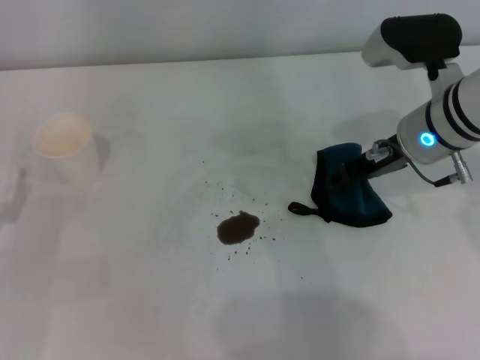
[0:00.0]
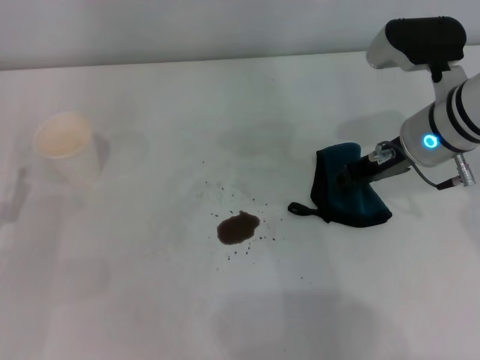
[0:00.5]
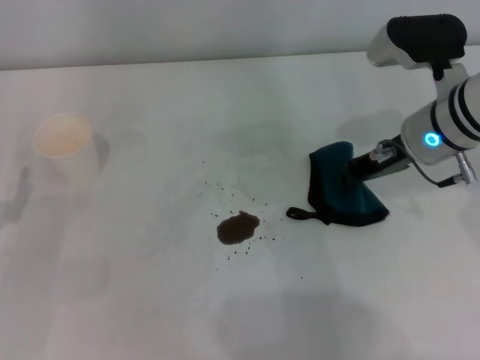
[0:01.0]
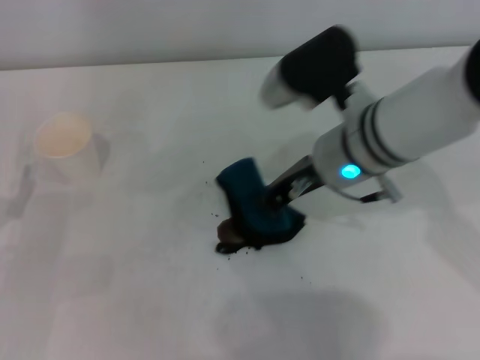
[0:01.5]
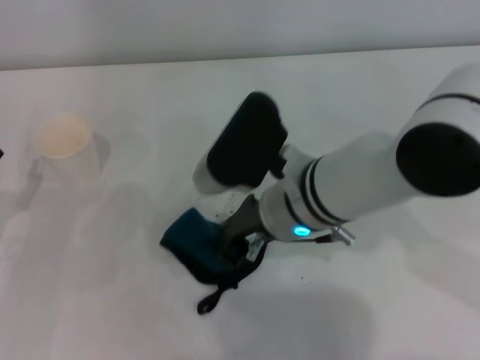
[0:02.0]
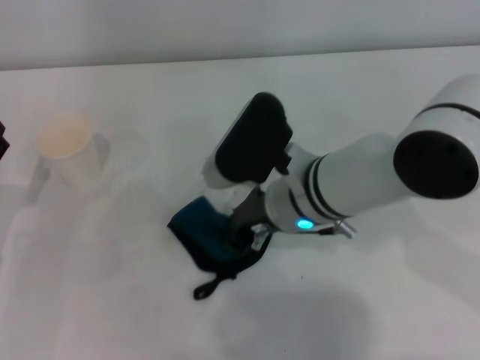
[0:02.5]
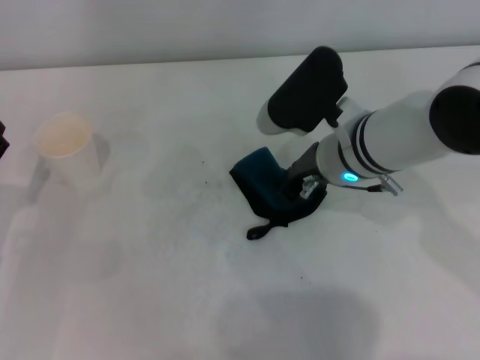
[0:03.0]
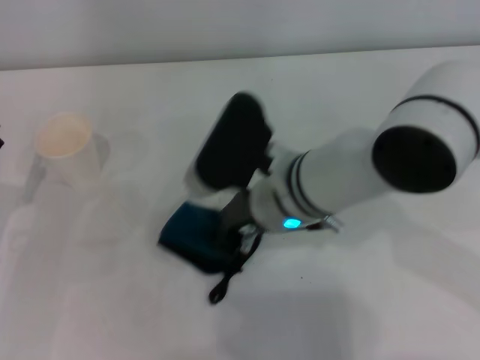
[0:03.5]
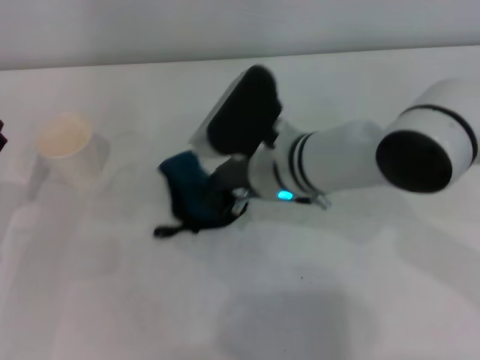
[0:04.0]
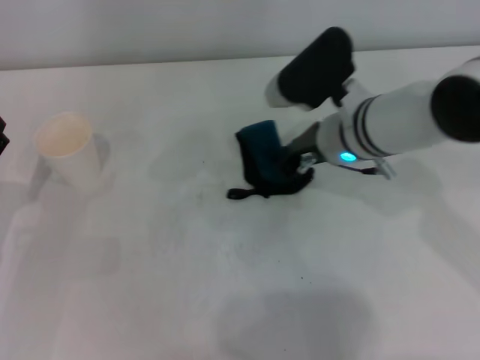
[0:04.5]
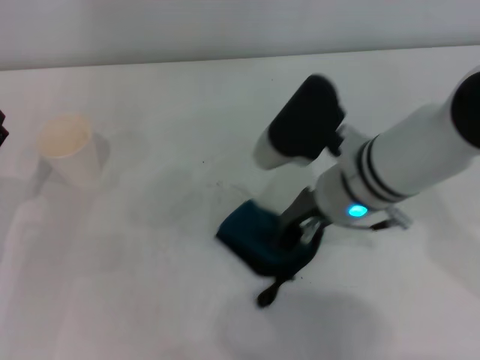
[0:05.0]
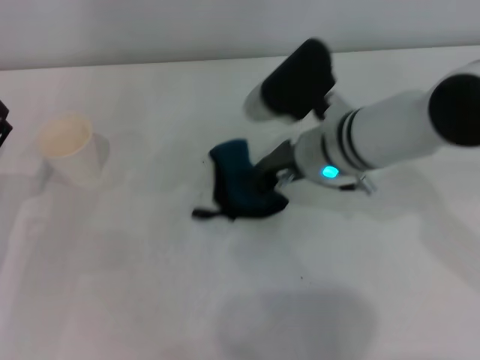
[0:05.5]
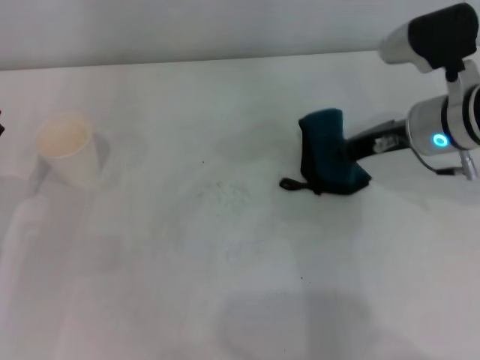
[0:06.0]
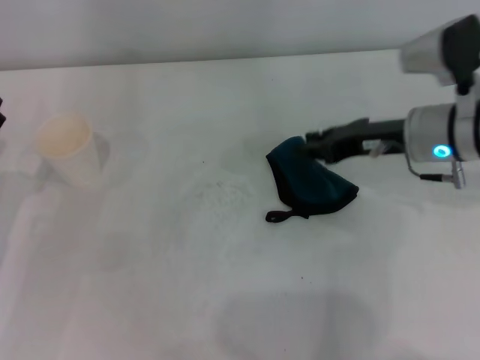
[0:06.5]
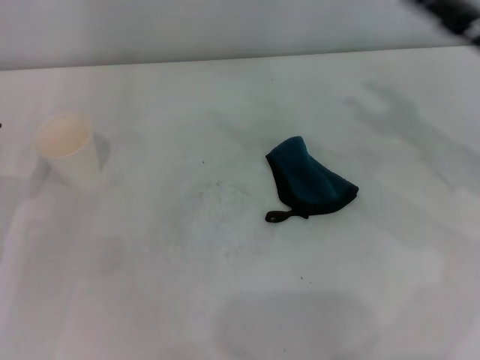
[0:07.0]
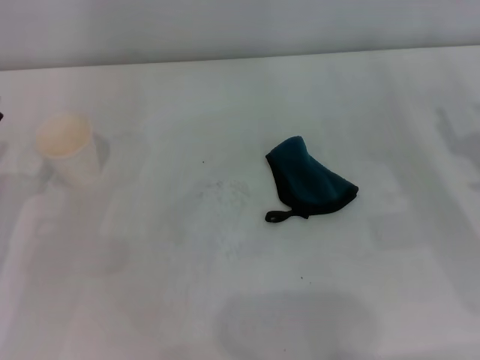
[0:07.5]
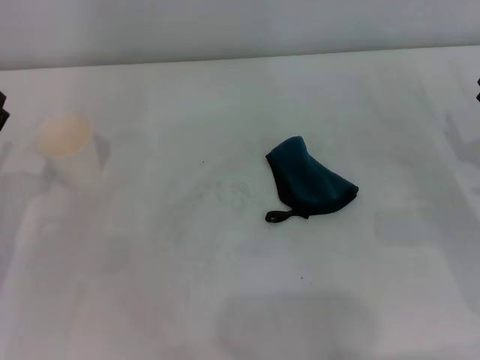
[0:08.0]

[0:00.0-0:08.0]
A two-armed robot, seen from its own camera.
Step, 0:01.0 to 0:05.5: Wipe the stains off the table with the right gripper.
0:00.0 to 0:02.0: The right gripper travels to the left and backward by about 15 cm, and closes up.
0:04.0 to 0:06.0: The right gripper heads to the right, covering roughly 15 cm.
0:06.0 to 0:08.0: The right gripper travels to the right, backward and downward by about 15 cm, and opens up.

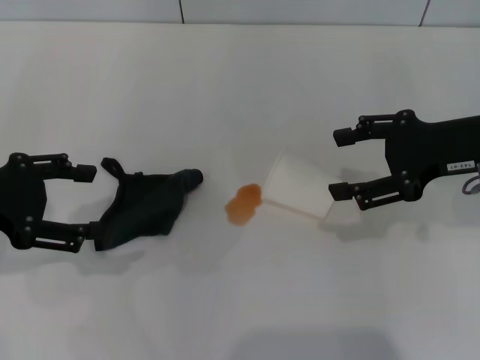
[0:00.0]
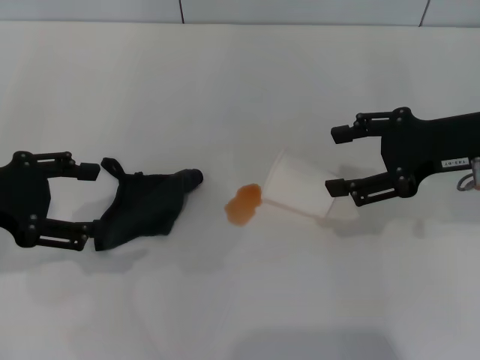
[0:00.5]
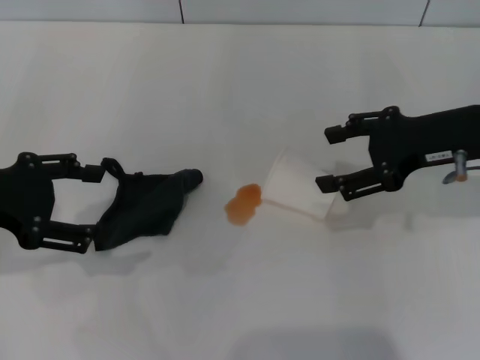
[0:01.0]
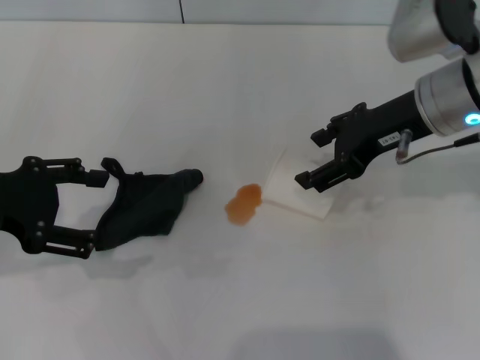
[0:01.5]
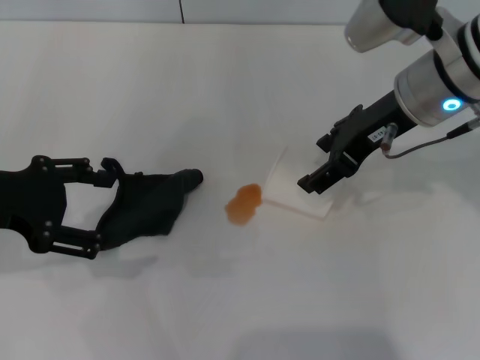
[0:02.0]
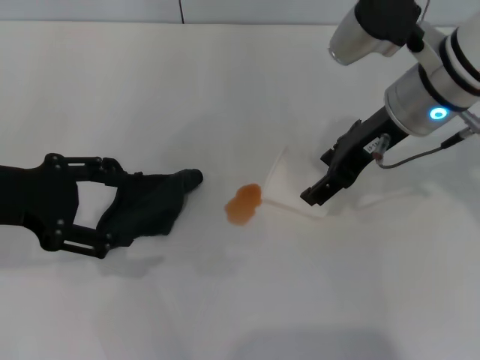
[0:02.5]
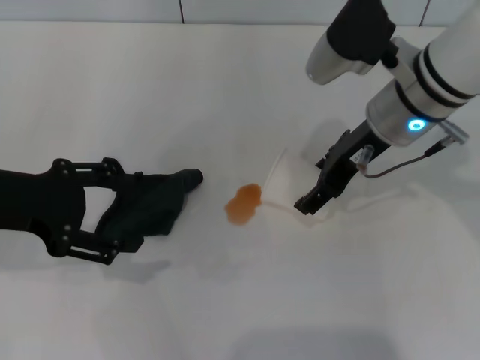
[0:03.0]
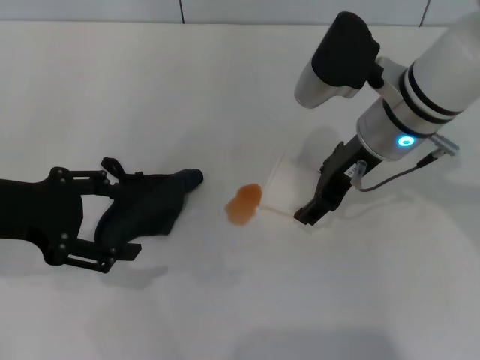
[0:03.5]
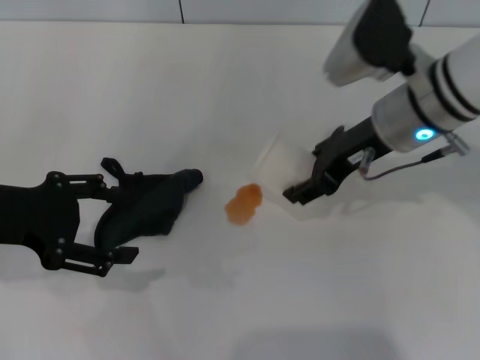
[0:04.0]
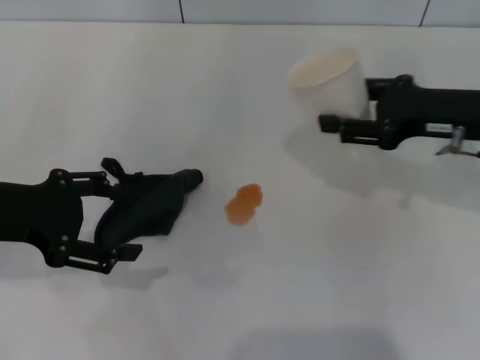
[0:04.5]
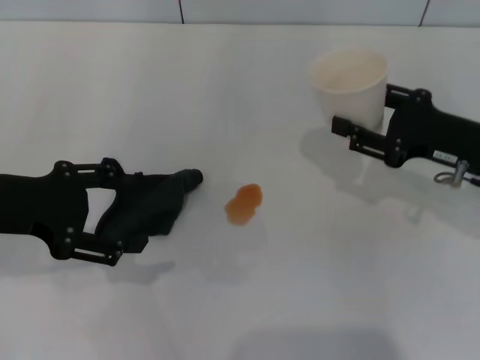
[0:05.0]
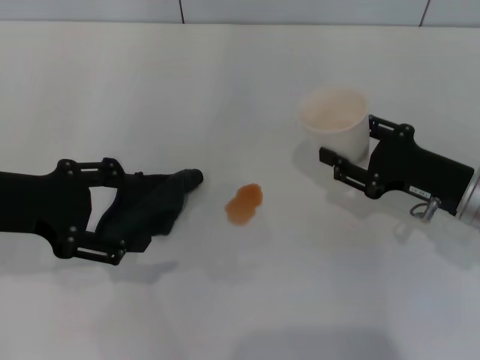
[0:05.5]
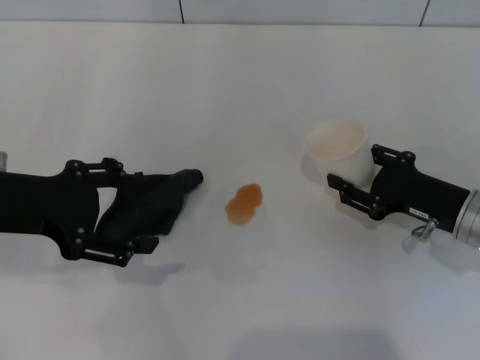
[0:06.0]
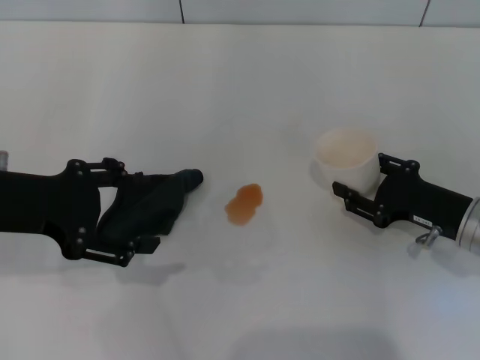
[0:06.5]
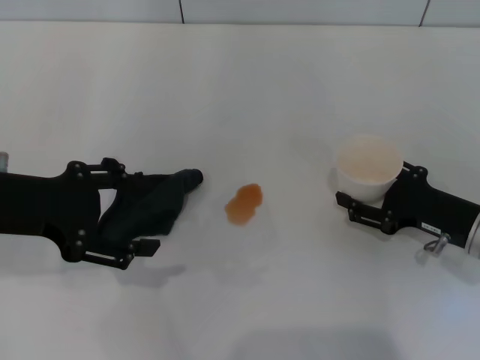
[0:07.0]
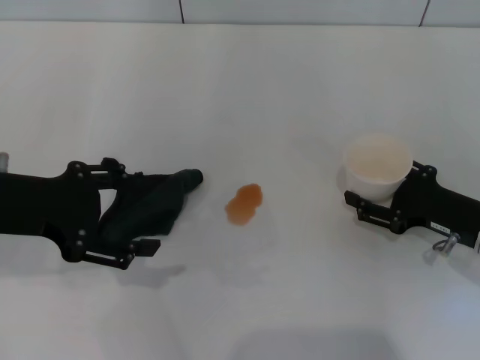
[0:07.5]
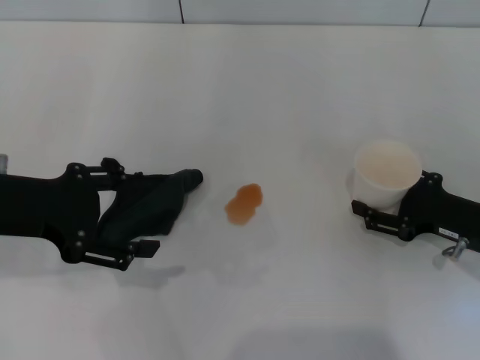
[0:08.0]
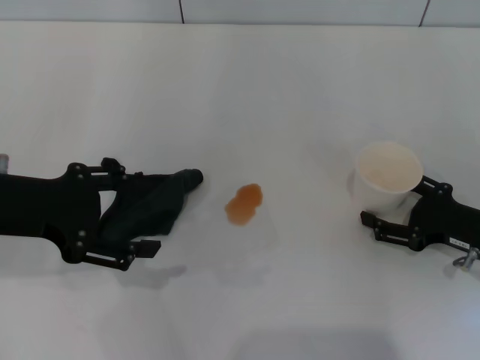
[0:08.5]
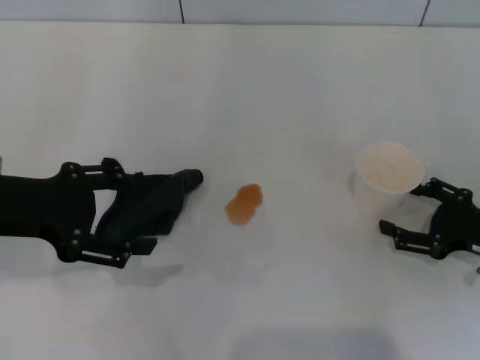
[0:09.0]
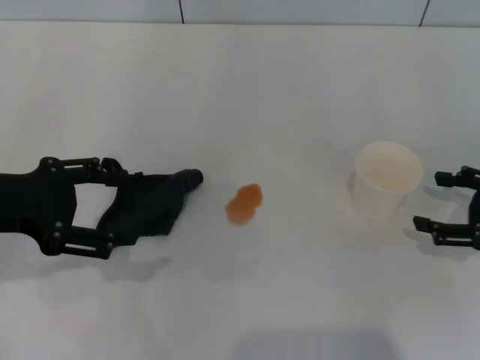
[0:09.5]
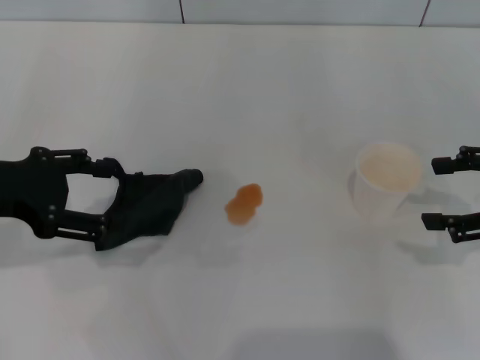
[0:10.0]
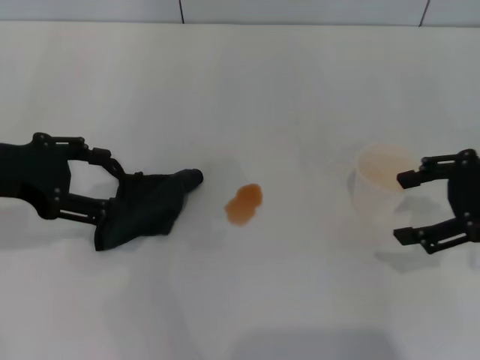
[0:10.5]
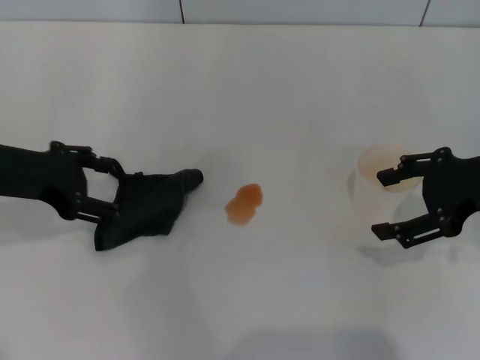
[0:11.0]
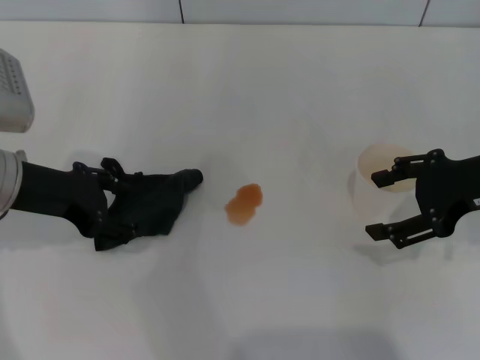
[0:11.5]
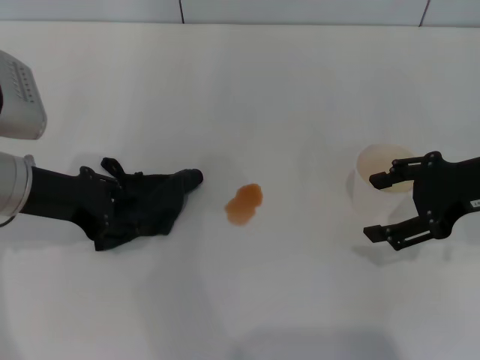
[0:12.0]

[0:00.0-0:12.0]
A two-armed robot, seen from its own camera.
Step, 0:00.0 to 0:03.0: Grasp the paper cup with the right gripper.
Step, 0:03.5 to 0:08.5: Stand the paper cup upright with the right gripper.
0:00.0 to 0:02.0: The right gripper moves to the left, some 10 cm.
0:02.0 to 0:04.0: The right gripper closes its fingers.
0:04.0 to 0:06.0: The right gripper travels downward, to the right and backward by roughly 20 cm, and closes its fingers.
0:06.0 to 0:08.0: The right gripper opens its fingers.
0:08.0 to 0:10.0: The right gripper is displaced upward by some 15 cm.
0:10.0 to 0:12.0: The left gripper shifts about 5 cm downward. The right gripper travels to the left by approximately 5 cm.

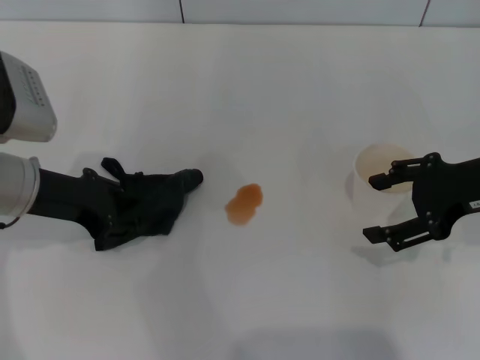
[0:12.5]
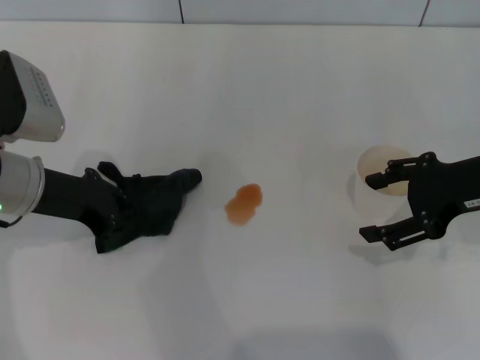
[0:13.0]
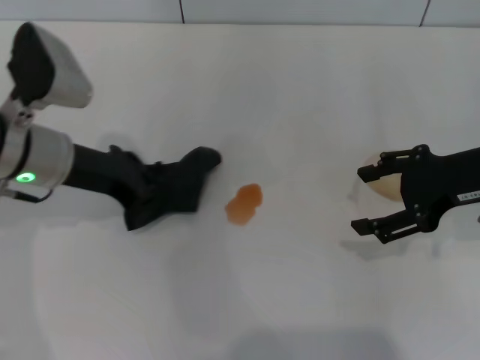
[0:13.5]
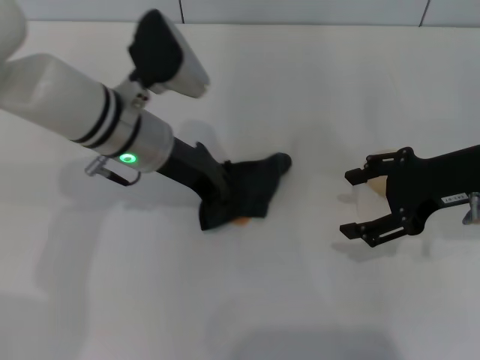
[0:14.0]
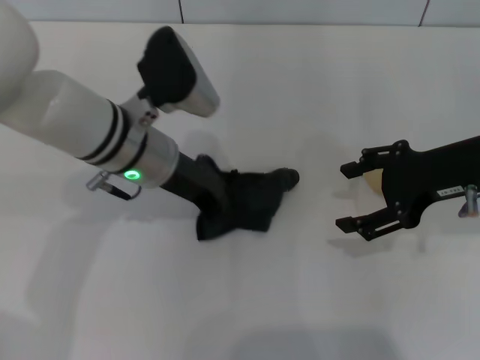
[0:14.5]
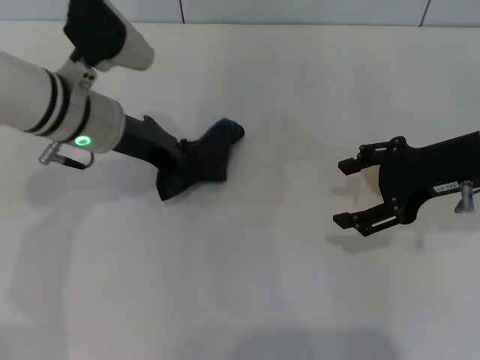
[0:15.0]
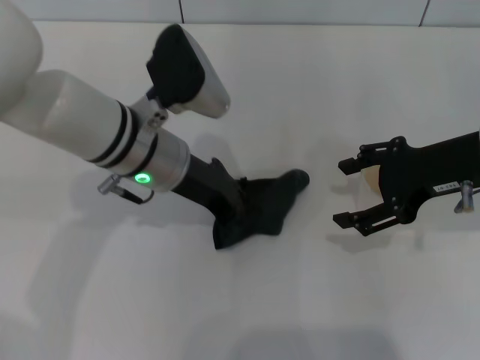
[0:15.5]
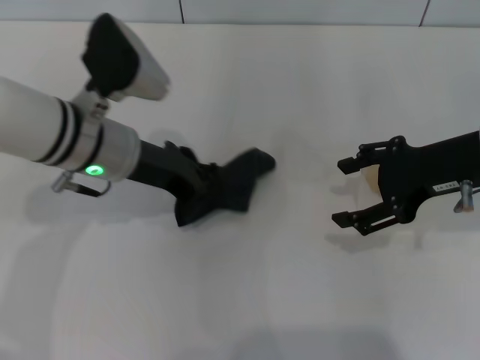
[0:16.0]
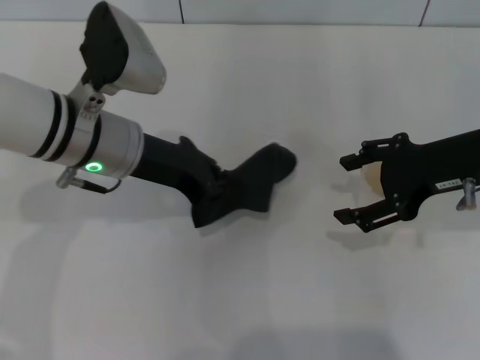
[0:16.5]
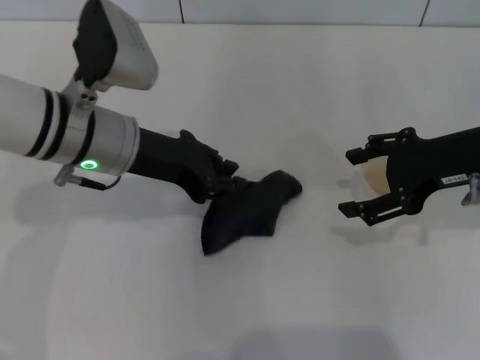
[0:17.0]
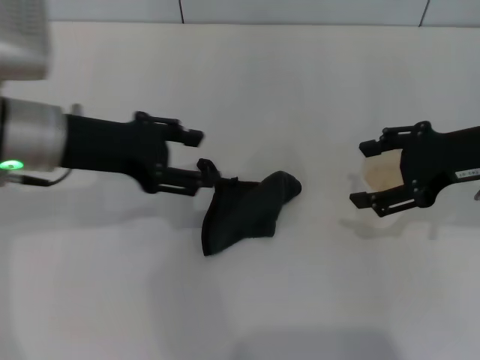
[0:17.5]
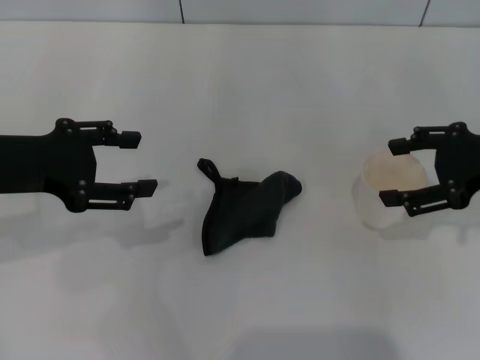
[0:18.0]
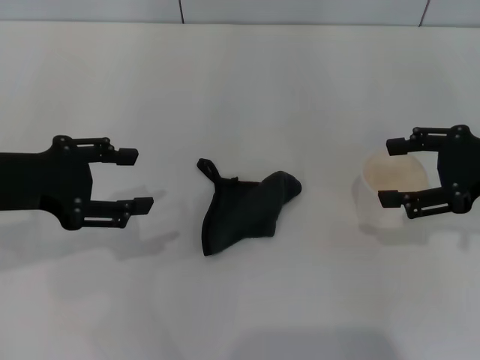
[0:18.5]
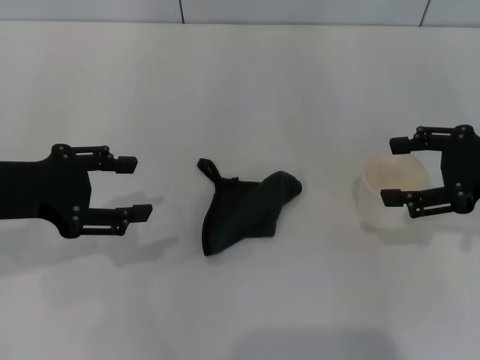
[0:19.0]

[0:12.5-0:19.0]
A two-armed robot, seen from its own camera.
Step, 0:13.5 to 0:16.5: Wipe the stains off the table with the left gripper.
0:12.5 to 0:14.5: The left gripper moves to the right, some 15 cm, and closes its fingers.
0:14.5 to 0:17.0: The left gripper moves left and right over some 5 cm, changing direction 2 times.
0:17.0 to 0:19.0: The right gripper travels to the right by some 5 cm, while the left gripper is displaced to the left and backward by about 15 cm, and opens its fingers.
